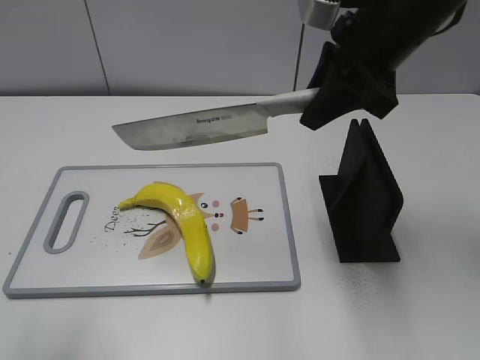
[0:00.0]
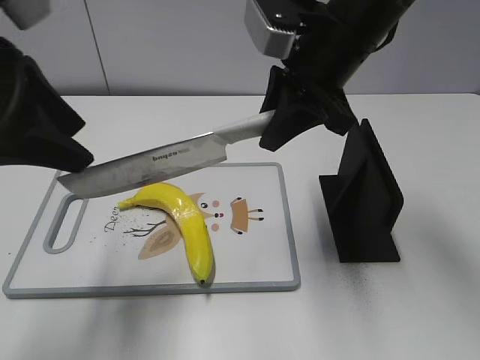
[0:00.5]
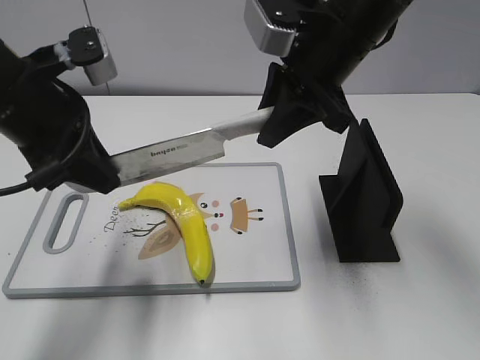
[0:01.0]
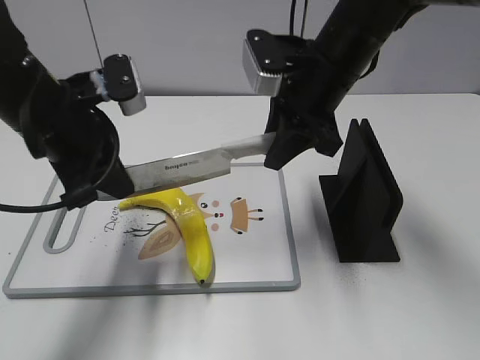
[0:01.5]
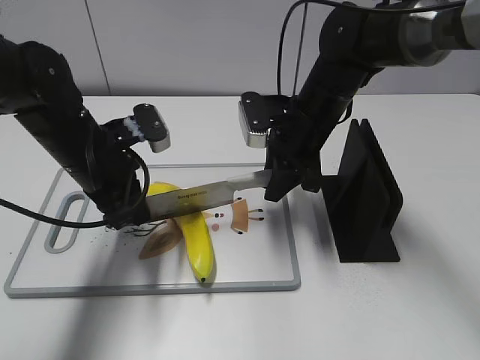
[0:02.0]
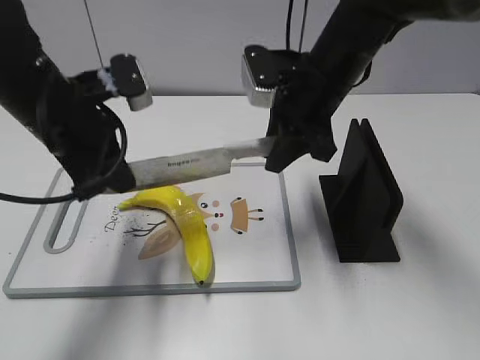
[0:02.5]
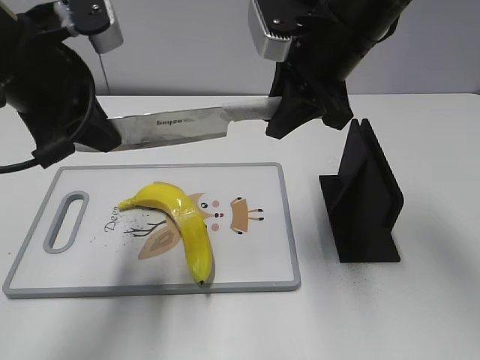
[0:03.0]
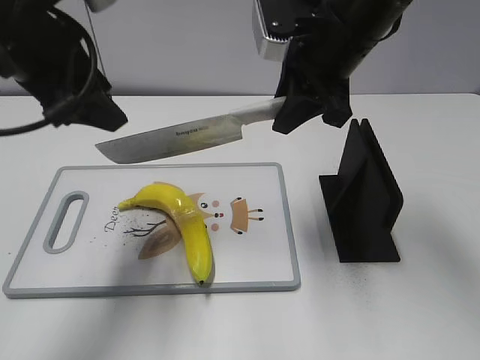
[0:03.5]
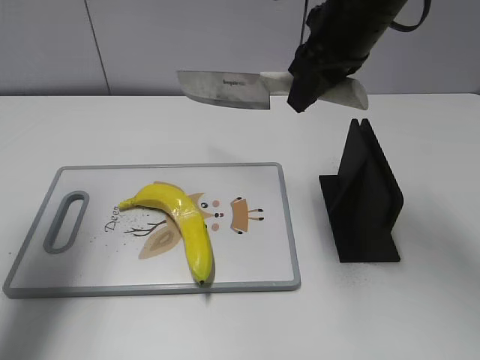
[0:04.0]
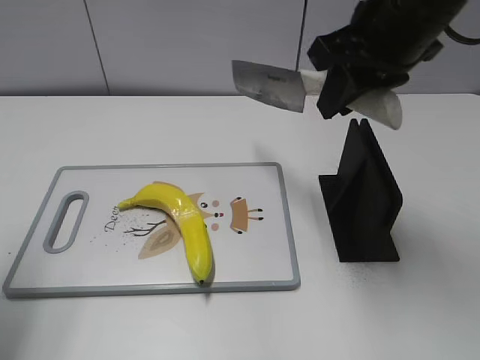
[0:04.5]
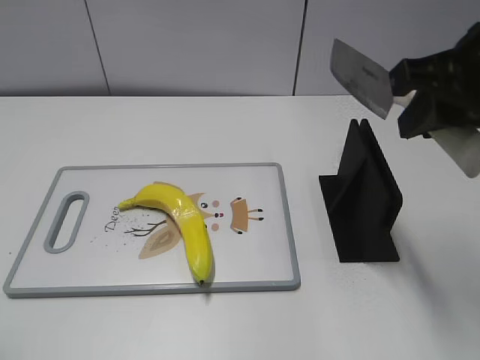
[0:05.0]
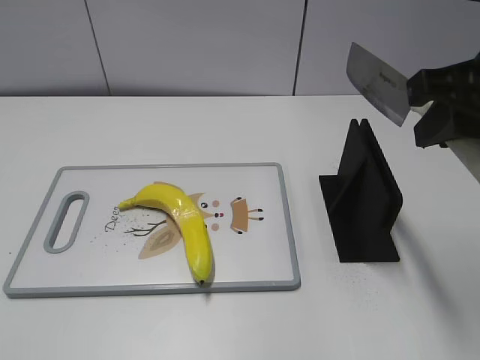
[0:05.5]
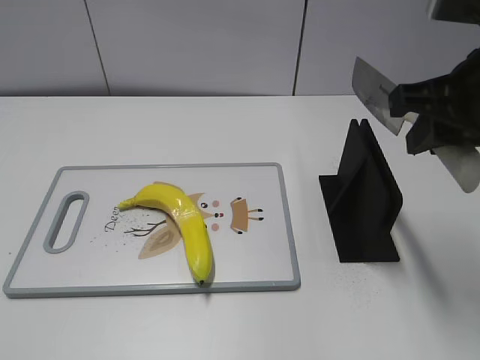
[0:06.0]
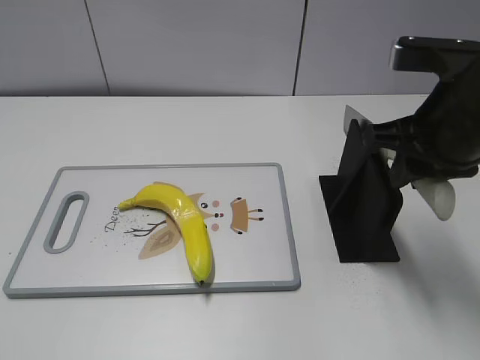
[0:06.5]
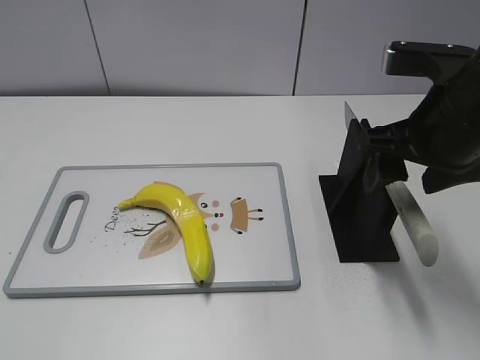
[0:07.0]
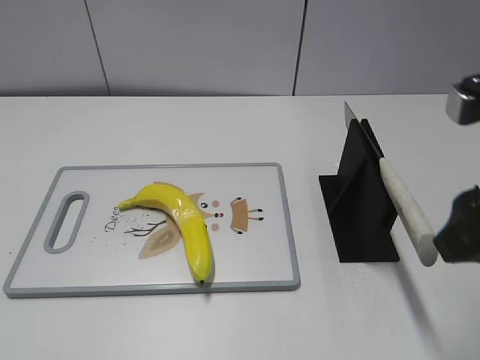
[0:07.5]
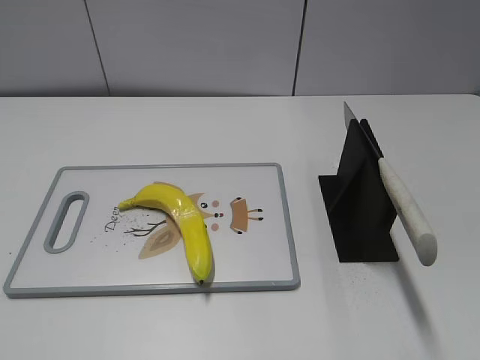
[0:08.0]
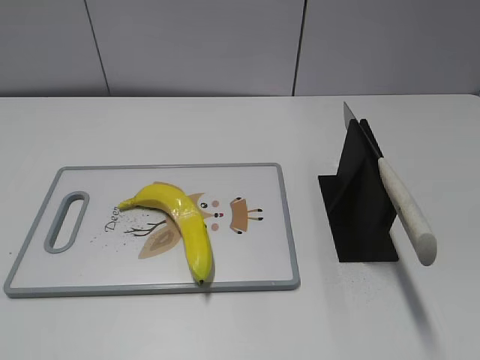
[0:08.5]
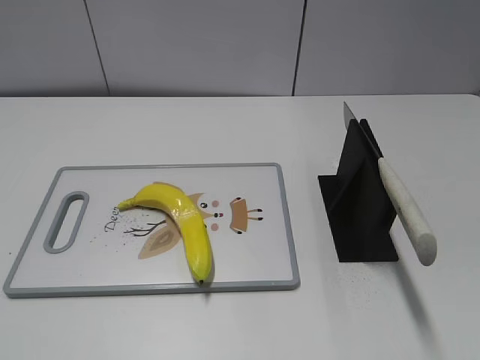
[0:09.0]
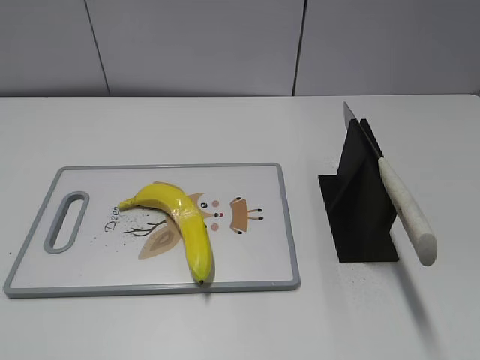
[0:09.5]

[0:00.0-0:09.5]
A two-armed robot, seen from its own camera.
Task of the whole recording: cut plastic banana.
Step, 0:00.0 to 0:02.5: Lift the knife with your right hand.
Step, 0:03.0 to 0:03.5: Cut the banana with your right hand.
Step, 0:04.0 to 0:05.5: Lift the knife with your right hand.
Step, 0:06.0 to 0:09.5: Place the knife on the storage rack with your right hand.
0:00.0 to 0:02.0: The left gripper is displaced forward, downward and to the right by some 30 cm, and closes its fingers; the right gripper shifts about 15 cm downward.
0:02.0 to 0:04.0: The left gripper heads upward and to the left, covering some 20 cm, and opens up. The right gripper is displaced upward by approximately 15 cm.
0:04.0 to 0:05.5: The right gripper moves backward and to the right, approximately 15 cm. Meanwhile the left gripper travels backward by roughly 30 cm.
0:05.5 to 0:07.5: The right gripper moves roughly 5 cm, and opens up.
0:07.5 to 0:09.5: The right gripper goes roughly 20 cm backward and to the right.

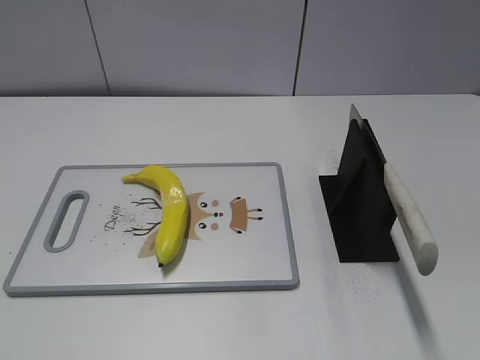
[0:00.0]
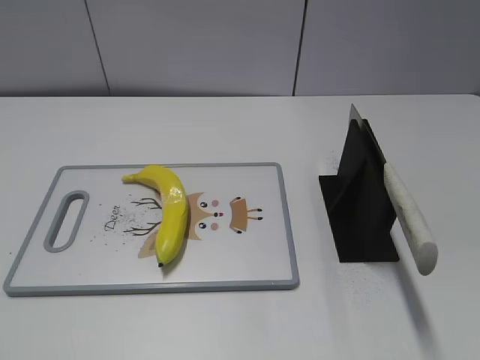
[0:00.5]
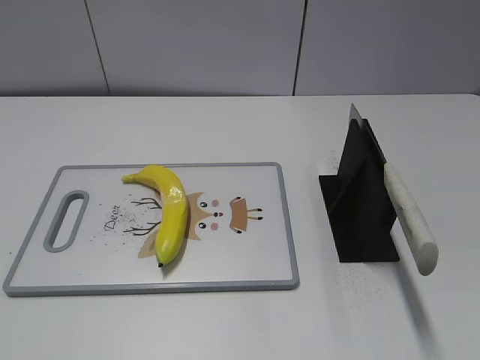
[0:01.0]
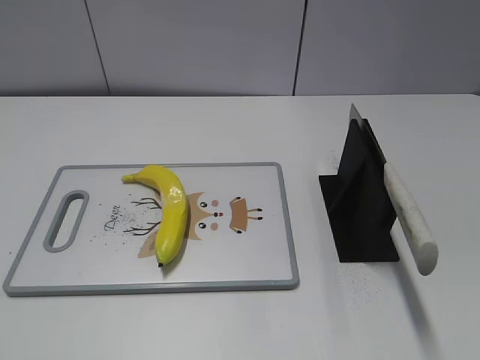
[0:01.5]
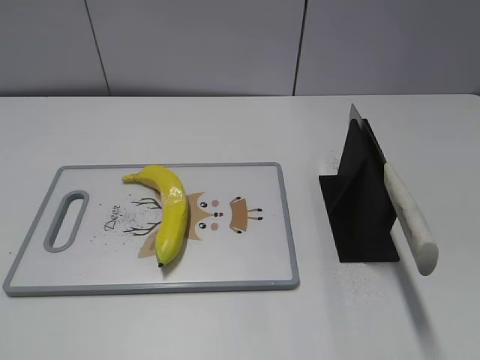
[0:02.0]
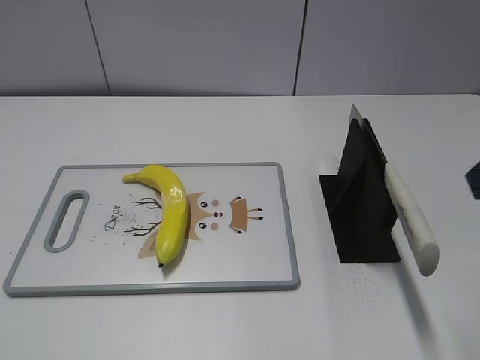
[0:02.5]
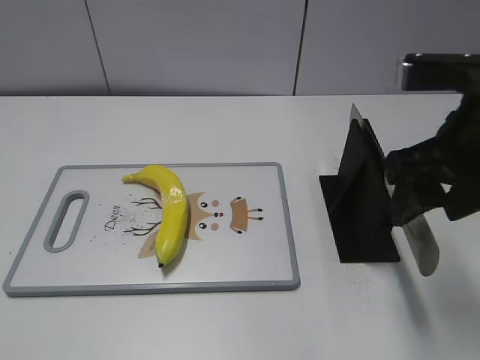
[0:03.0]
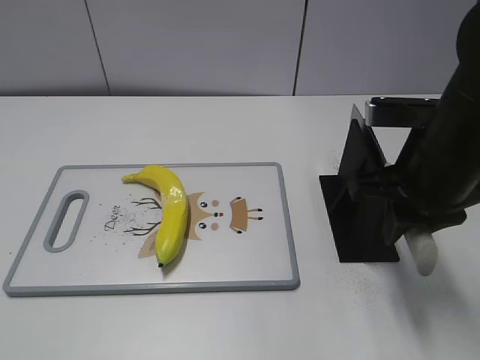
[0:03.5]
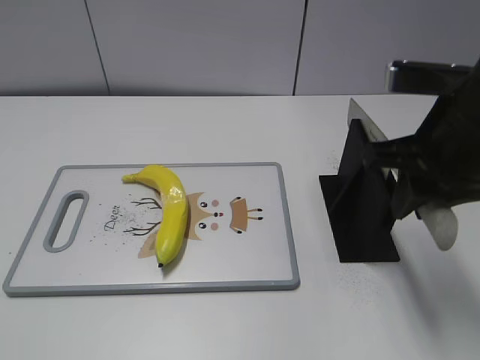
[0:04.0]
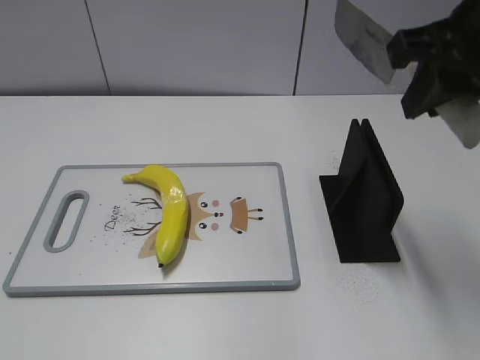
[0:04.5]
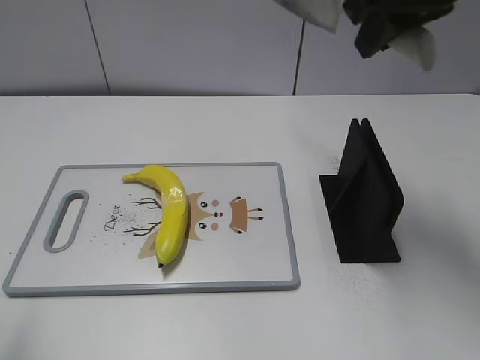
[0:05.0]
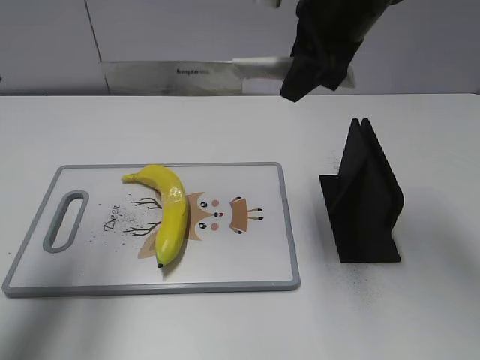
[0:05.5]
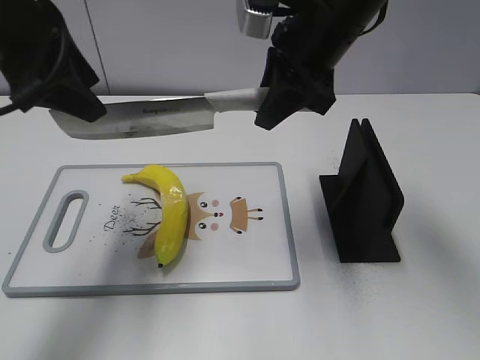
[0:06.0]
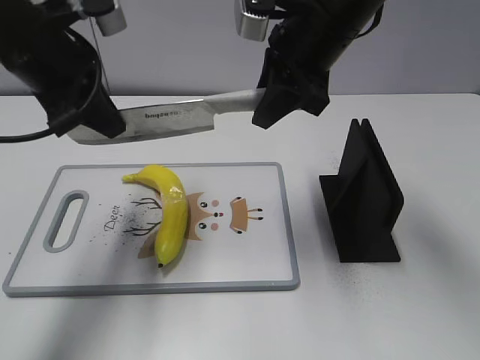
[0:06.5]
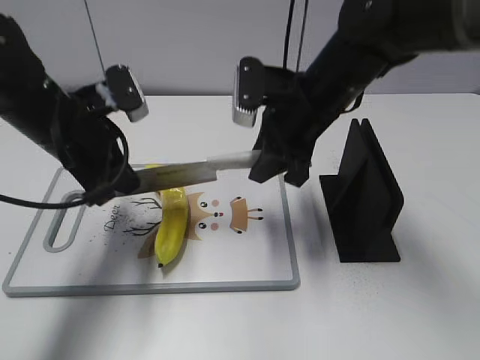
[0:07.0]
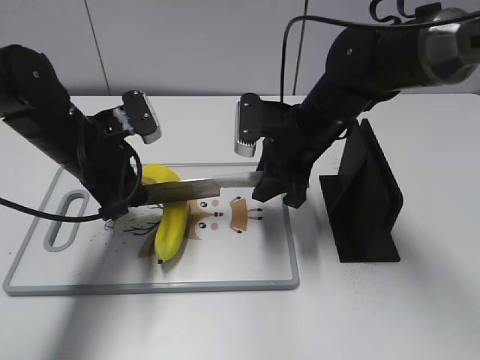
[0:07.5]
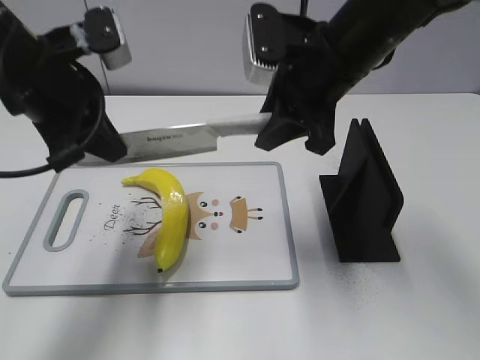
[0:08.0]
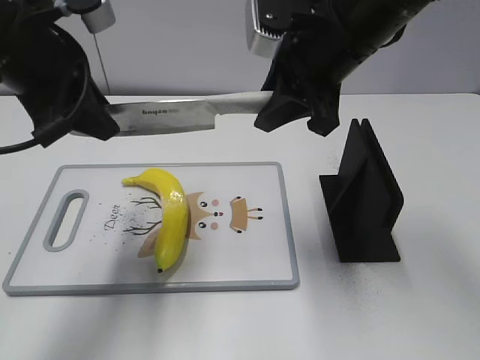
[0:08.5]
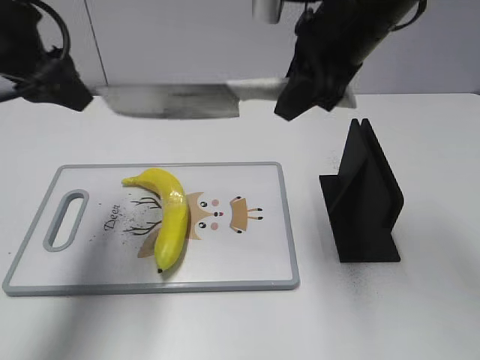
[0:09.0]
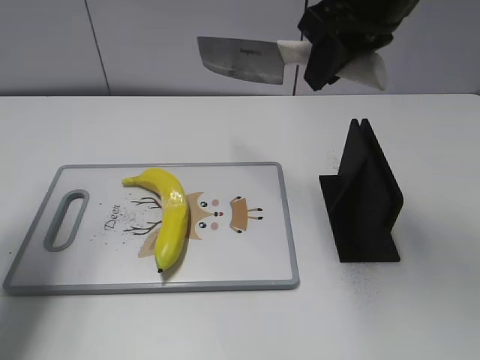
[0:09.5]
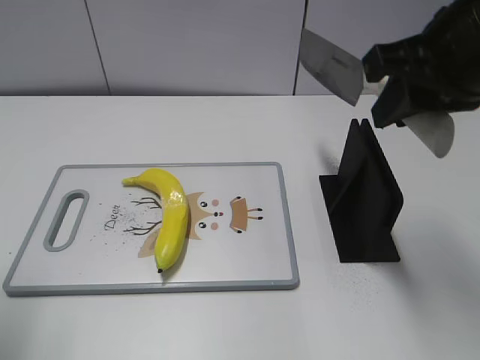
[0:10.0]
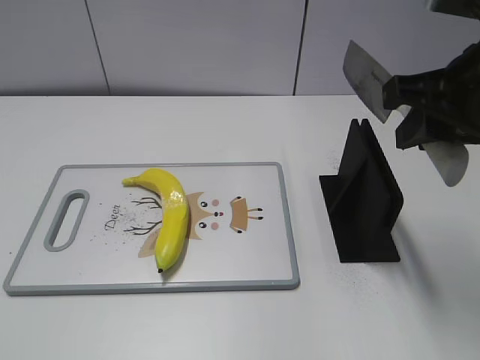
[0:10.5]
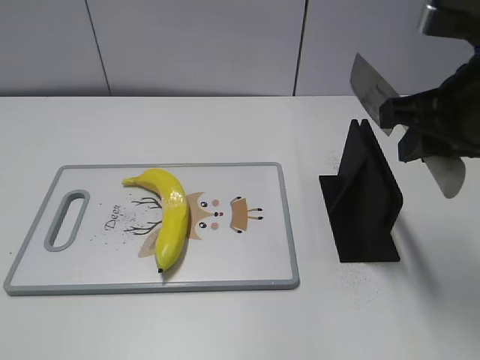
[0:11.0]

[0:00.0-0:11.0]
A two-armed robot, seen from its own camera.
Task of the whole recording: cut plastic banana.
Step, 0:00.0 to 0:04.0: Grab the knife handle with your right hand.
Step, 0:04.5 to 0:08.0: Lift the knife with your right hand.
Step, 0:08.5 to 0:09.0: Cut the banana with your right hand.
Step, 0:09.5 to 0:10.5: Lift the knife with your right hand.
0:02.0 to 0:03.5: The right gripper heads forward, downward and to the left, covering some 25 cm, and closes its fingers.
0:03.5 to 0:05.5: The left gripper travels forward by approximately 25 cm, while the right gripper moves forward, upward and to the left, roughly 15 cm.
0:05.5 to 0:07.5: The right gripper travels downward by some 15 cm, while the left gripper shifts roughly 25 cm downward and to the right, and closes its fingers.
0:07.5 to 0:09.0: The grippers both shift upward by about 15 cm. The left gripper opens up.
0:09.0 to 0:11.0: The left gripper goes approximately 30 cm backward. Meanwhile the right gripper heads backward and to the right, covering about 15 cm.

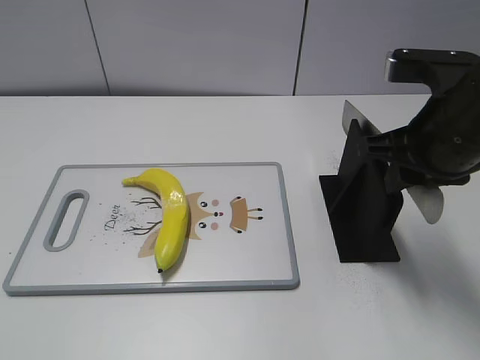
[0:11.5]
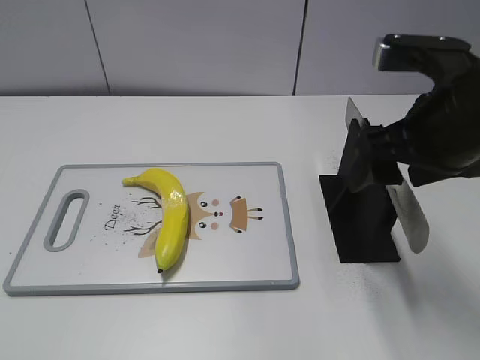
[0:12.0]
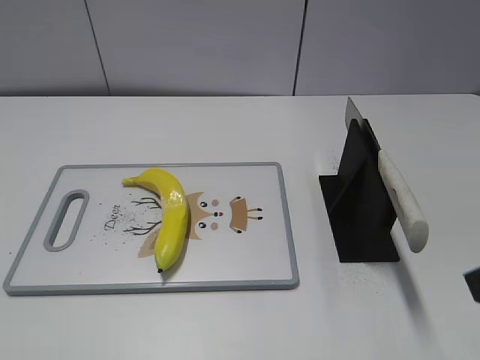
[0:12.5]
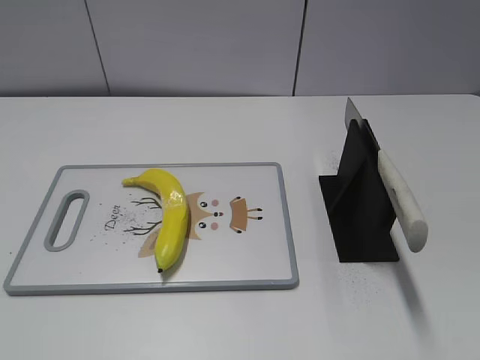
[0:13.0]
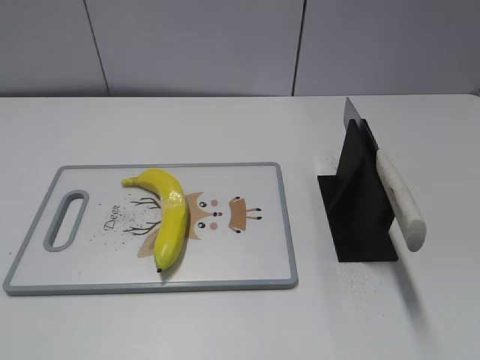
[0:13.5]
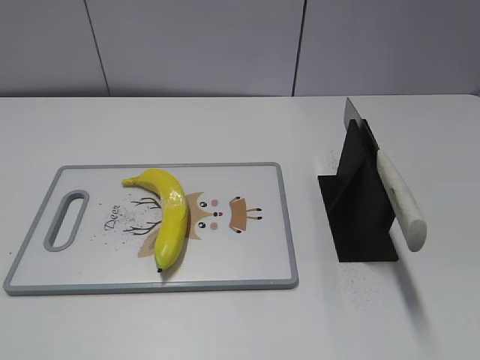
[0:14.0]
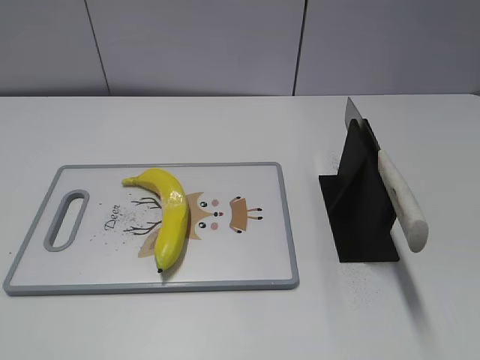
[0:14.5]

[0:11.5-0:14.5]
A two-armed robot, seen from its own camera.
Task of the whole recording: cut plastic banana.
Step, 0:11.5 to 0:14.5: Place the knife on the storage rack with your right hand.
0:11.5 to 0:13.0: The right gripper travels backward by approximately 20 cm, and opens its fingers.
